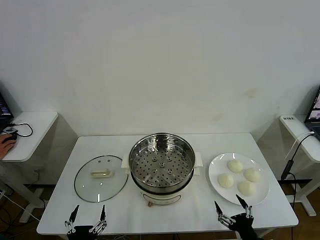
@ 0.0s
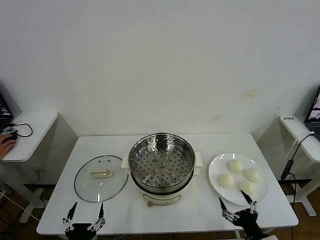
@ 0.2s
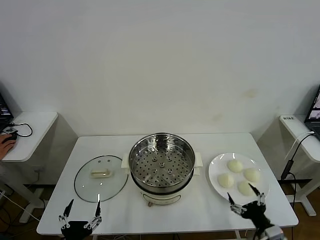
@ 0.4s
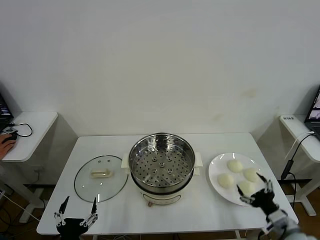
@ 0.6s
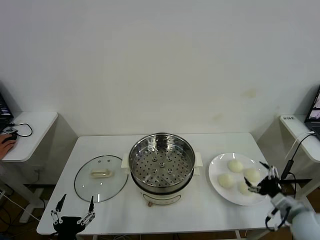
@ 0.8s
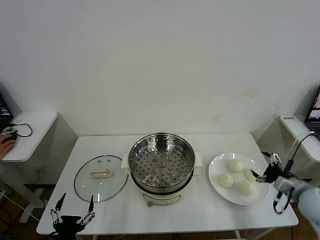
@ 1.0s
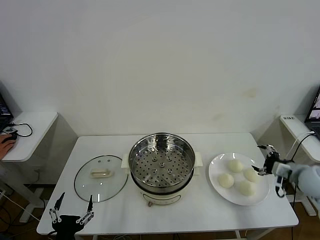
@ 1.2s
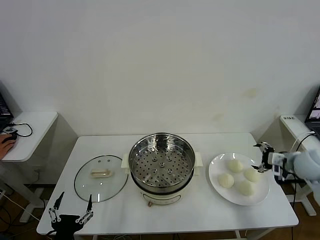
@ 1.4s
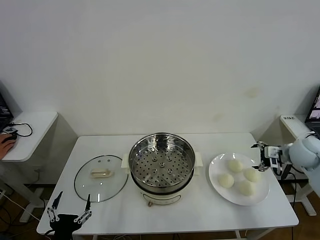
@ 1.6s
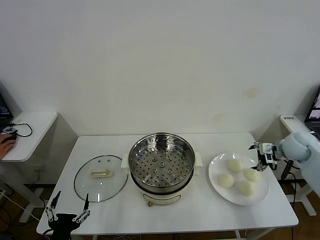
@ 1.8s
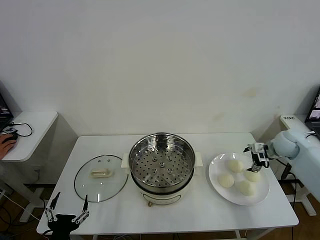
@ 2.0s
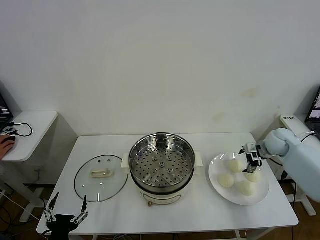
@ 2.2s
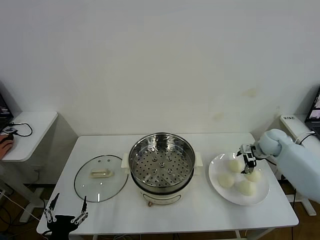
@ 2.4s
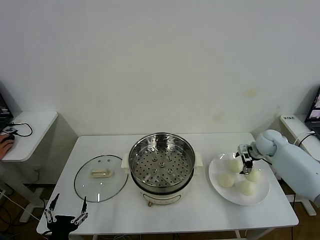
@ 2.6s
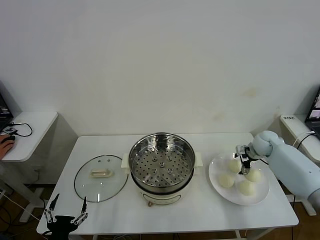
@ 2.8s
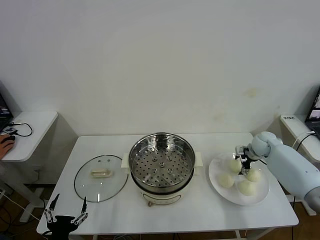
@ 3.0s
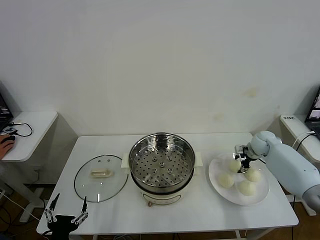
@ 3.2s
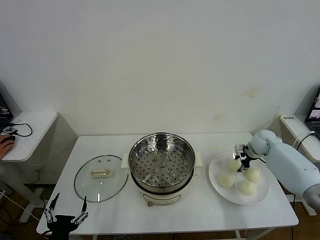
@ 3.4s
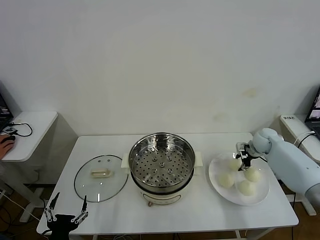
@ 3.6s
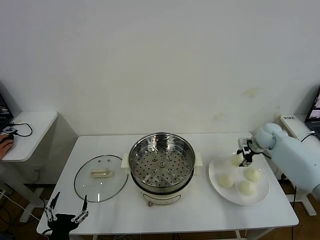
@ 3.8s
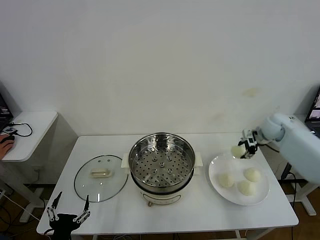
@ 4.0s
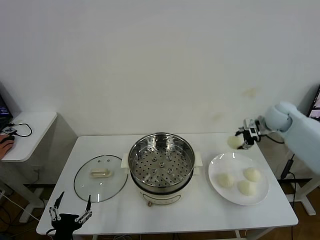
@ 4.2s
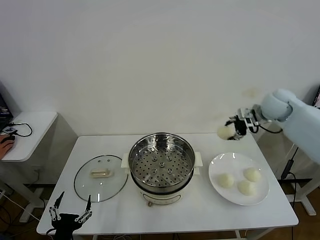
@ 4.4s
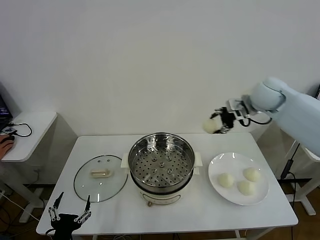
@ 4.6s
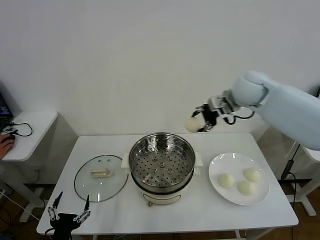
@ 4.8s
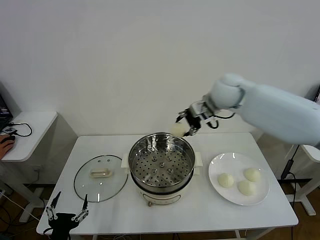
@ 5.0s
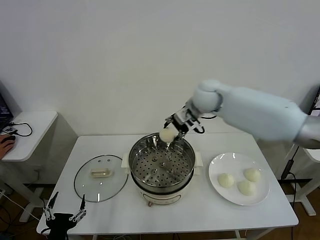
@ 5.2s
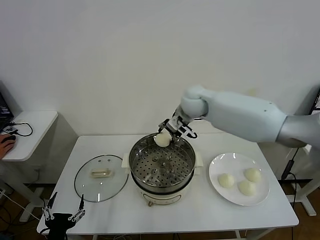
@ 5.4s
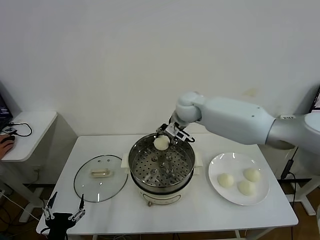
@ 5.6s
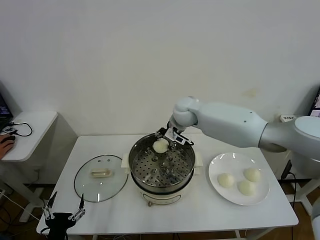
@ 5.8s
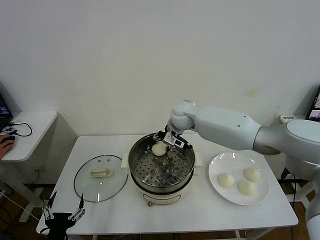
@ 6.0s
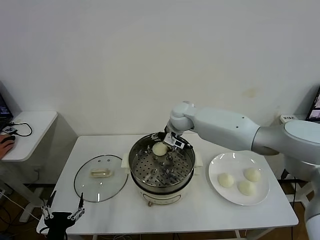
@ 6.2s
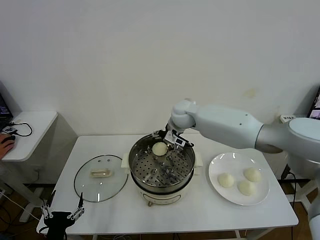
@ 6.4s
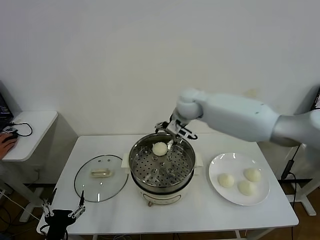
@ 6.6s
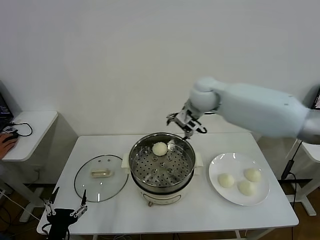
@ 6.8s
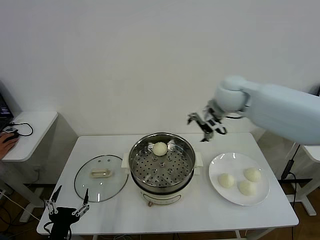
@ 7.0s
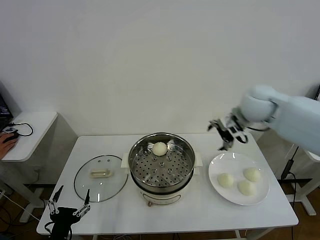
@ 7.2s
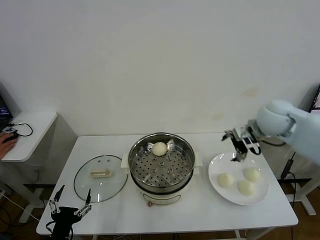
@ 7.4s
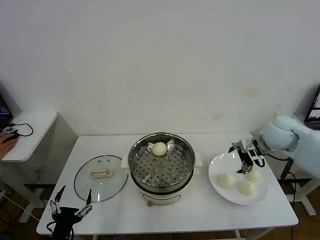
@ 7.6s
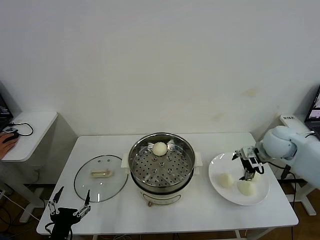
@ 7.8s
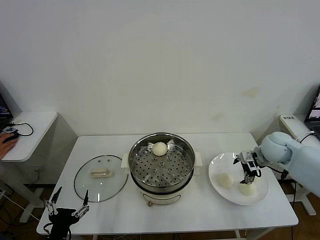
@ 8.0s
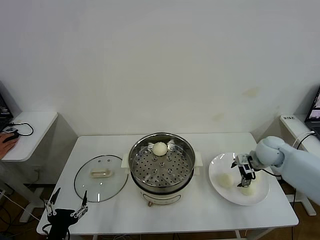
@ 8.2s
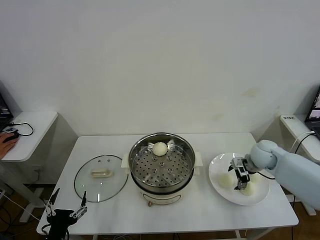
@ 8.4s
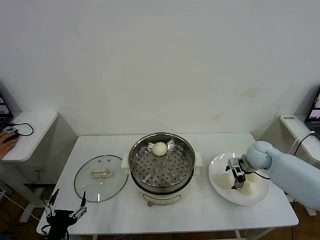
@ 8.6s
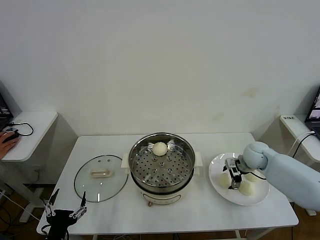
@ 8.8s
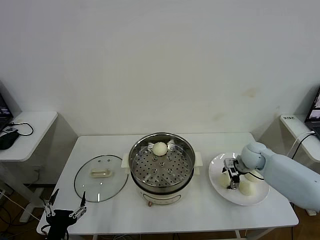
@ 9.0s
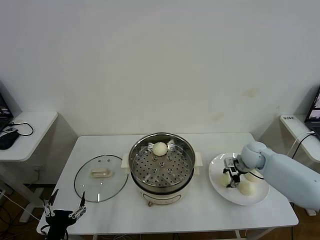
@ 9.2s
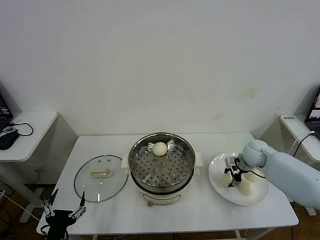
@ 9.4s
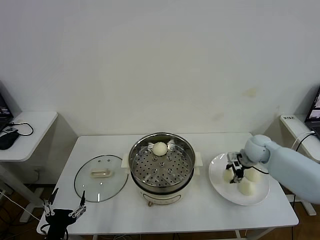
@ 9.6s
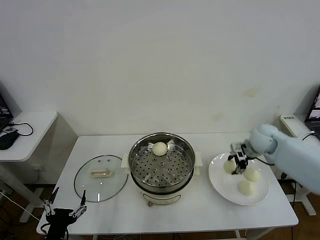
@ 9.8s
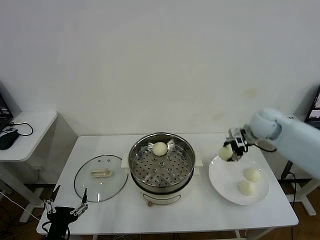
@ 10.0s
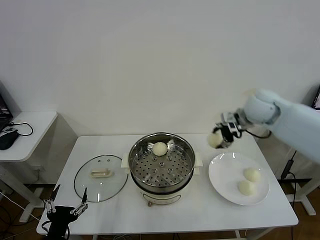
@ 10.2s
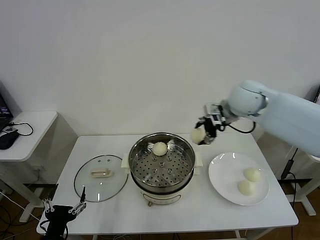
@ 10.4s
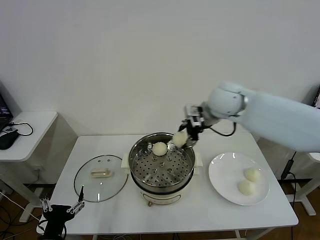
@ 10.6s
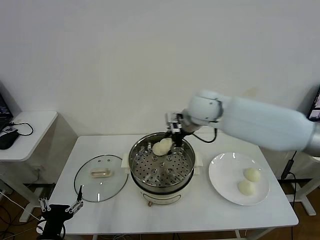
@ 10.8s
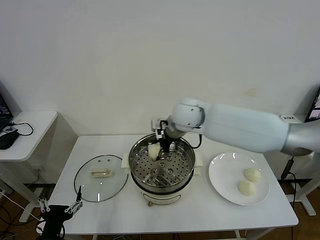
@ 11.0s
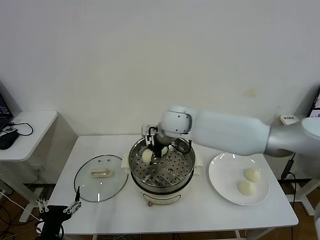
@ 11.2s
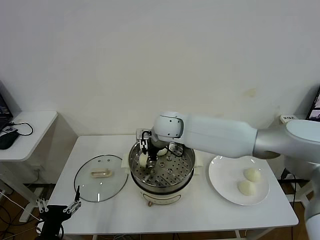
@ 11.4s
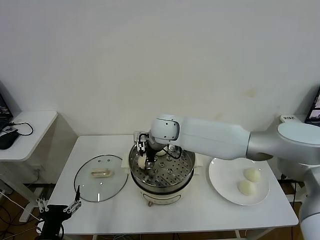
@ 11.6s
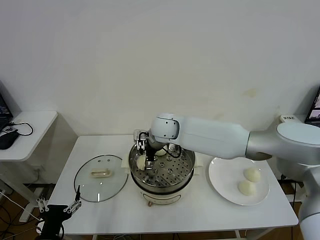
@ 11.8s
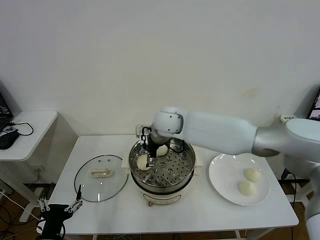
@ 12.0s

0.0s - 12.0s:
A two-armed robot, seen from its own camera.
Task of the whole recording: take steamed baozi put them in steamer then cover it.
Step, 0.0s - 3.2s: Grasp the baozi in the plate with right gripper.
Step, 3.4s - 6.2s: Place the baozi on the steamer with right gripper.
Step, 6.4s - 9.2s: Grasp the baozi in the plate with right gripper.
Step, 9.4s - 11.8s: Place the baozi on the steamer with right gripper.
1.6s - 3.0s: The right gripper moves forward, downward and to the left, some 15 cm.
3.0s - 4.4s: The right gripper heads upward, covering roughly 20 cm, and closes its fingers.
4.4s - 6.0s: The right gripper goes approximately 30 cm to the left.
6.0s - 7.6s: The right gripper travels to the right and backward by about 30 cm, and opens.
7.6s - 9.0s: The right gripper goes roughly 15 cm downward.
9.0s - 10.4s: The right gripper travels upward and to the left by approximately 25 cm, and closes.
10.4s - 12.0s: The right gripper heads to the left and downward, covering roughly 25 cm, and opens up.

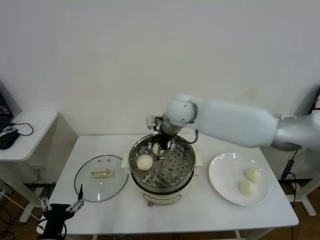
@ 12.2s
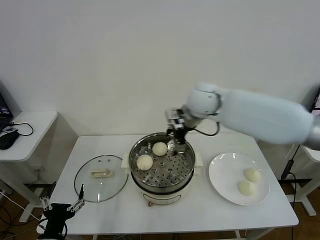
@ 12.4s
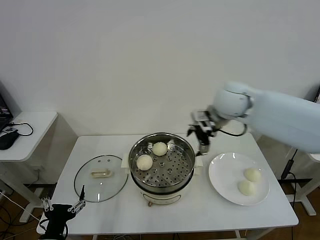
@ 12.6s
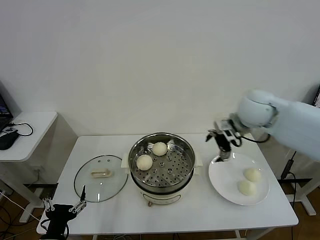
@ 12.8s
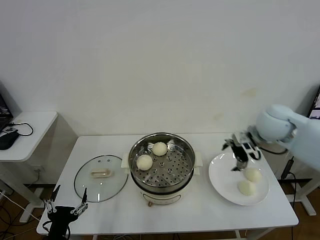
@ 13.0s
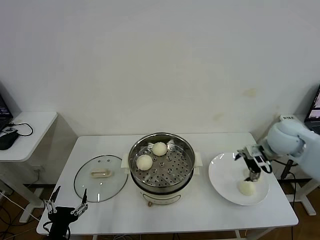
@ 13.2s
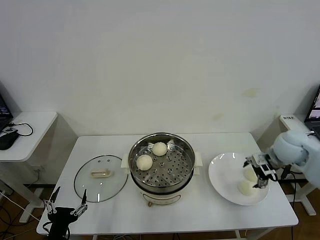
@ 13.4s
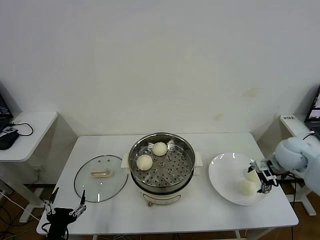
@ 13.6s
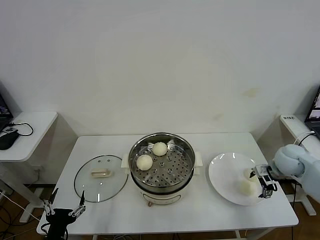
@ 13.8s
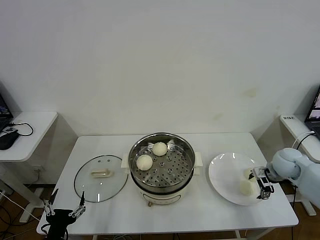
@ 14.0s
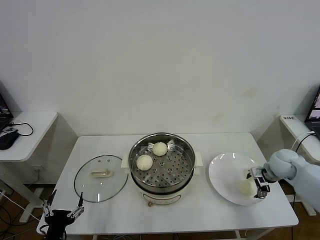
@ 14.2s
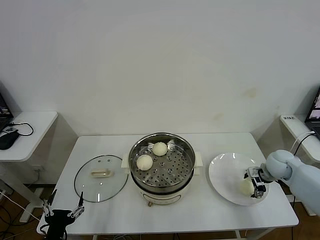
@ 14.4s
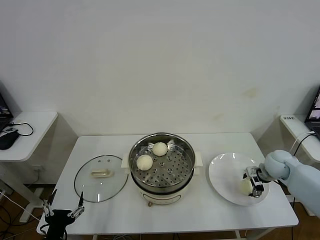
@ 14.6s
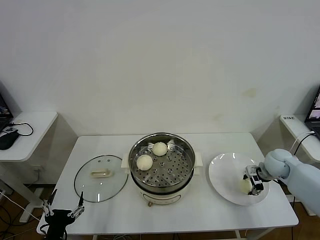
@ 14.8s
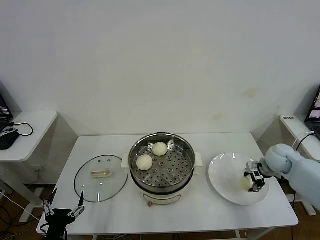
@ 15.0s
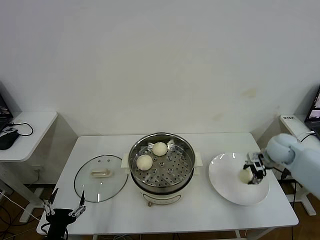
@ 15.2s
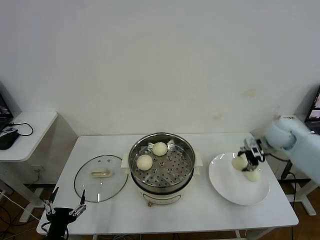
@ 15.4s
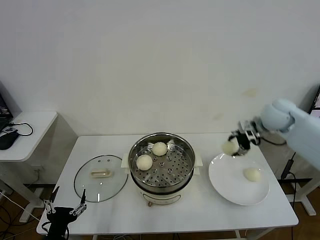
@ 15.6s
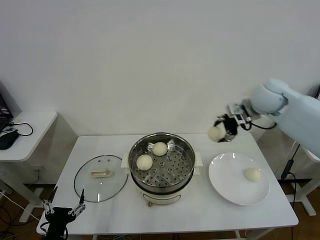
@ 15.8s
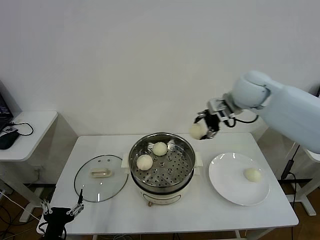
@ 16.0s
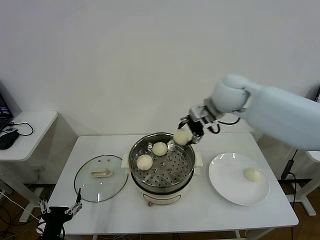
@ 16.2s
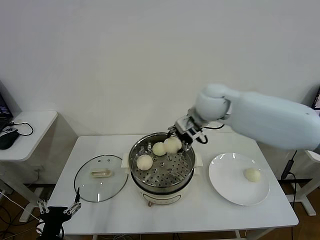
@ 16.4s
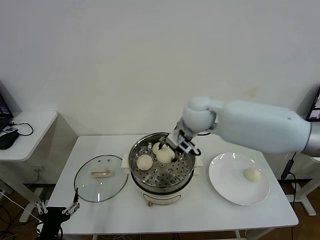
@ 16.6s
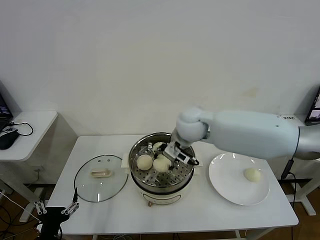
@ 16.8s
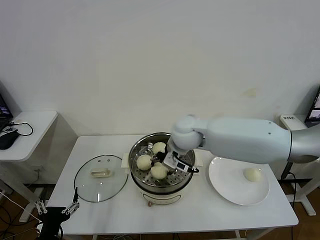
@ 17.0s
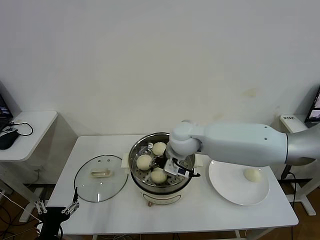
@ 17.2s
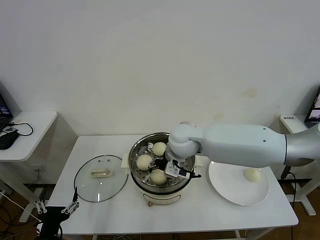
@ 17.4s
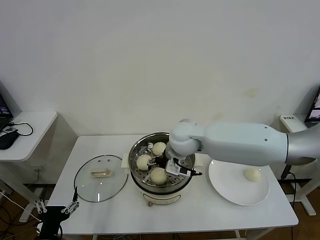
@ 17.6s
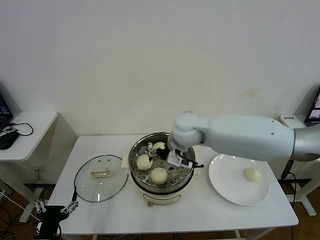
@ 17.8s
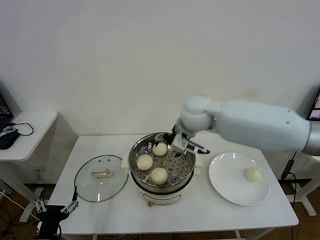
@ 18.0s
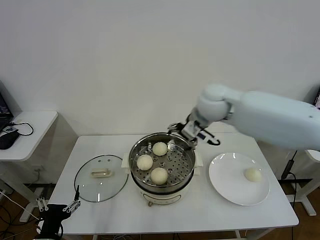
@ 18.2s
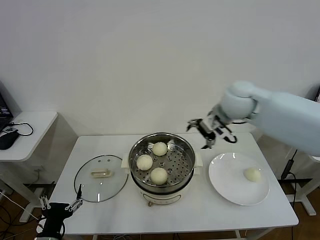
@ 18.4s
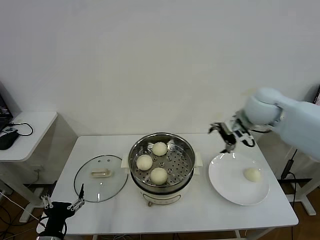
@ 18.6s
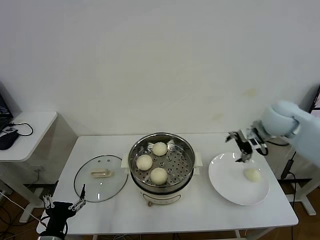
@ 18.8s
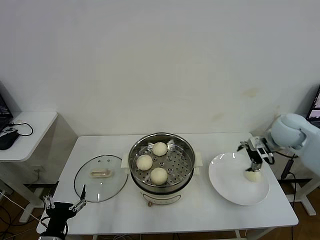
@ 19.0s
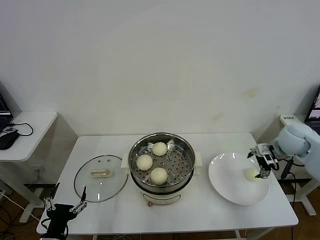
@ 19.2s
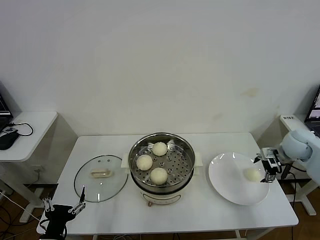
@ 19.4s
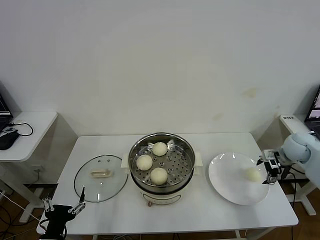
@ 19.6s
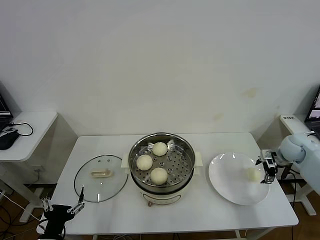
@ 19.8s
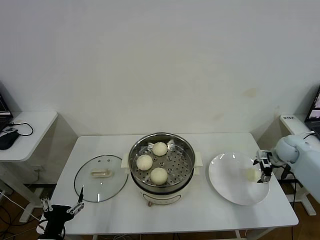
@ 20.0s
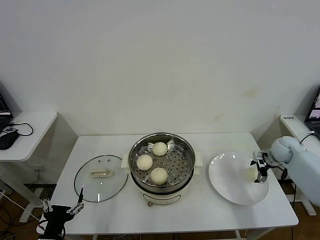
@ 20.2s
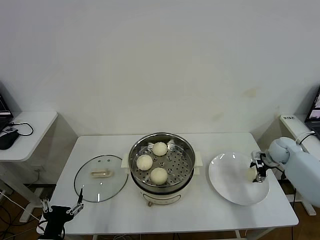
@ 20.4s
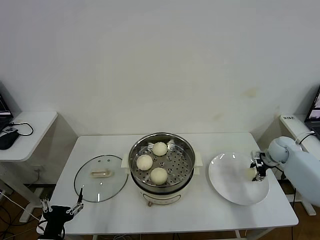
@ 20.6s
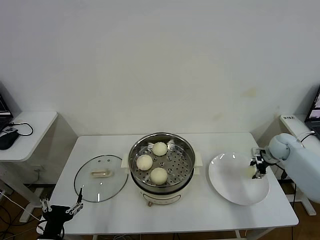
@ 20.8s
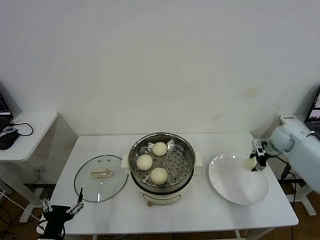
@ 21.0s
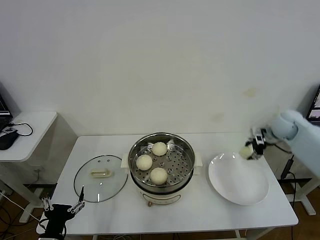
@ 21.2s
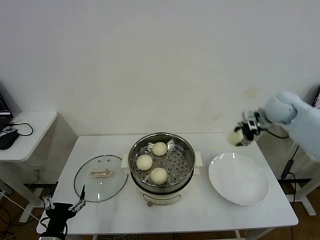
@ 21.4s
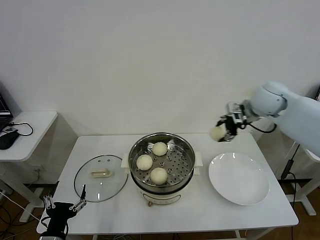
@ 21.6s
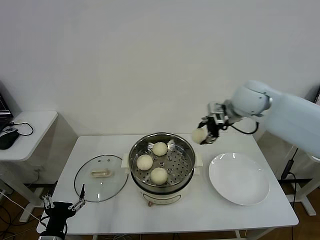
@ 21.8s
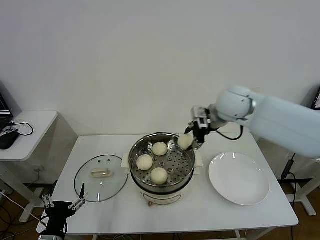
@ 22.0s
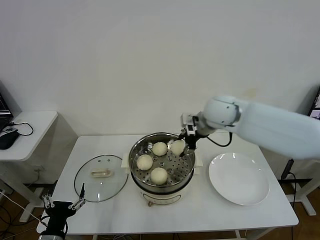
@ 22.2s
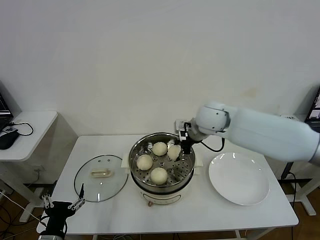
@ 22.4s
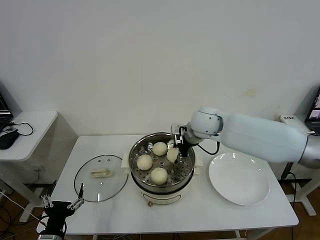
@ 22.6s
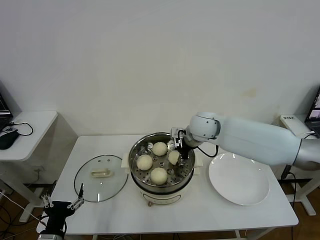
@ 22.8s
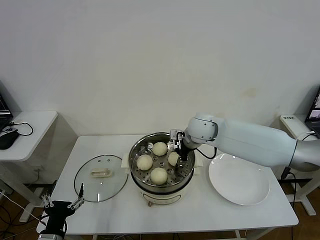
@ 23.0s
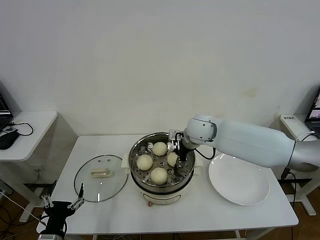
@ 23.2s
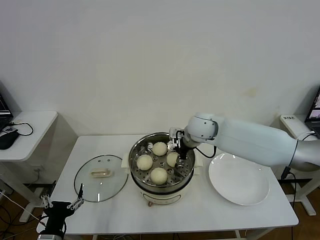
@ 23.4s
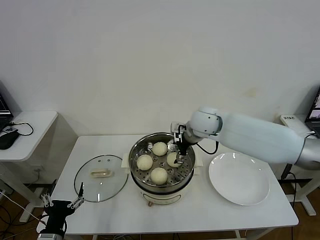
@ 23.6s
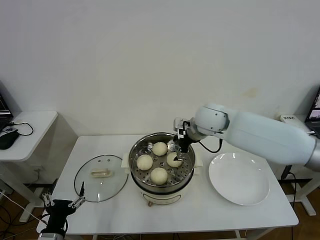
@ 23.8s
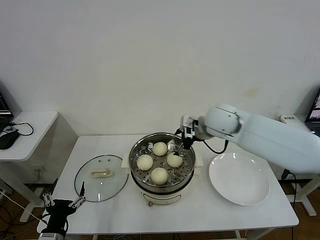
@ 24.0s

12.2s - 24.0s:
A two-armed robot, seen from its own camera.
Task of the whole recording: take steamed baozi put them in steamer then cover it.
Step, 12.2s - 14.8s: Grasp the baozi in the plate with right gripper.
Step, 15.0s - 17.6s: Place the baozi on the steamer with right gripper.
Step, 17.8s - 20.4s: Grasp the baozi in the plate with right gripper.
Step, 20.8s - 23.4s: Place the baozi on the steamer with right gripper.
12.2s - 13.6s: The right gripper travels to the right by approximately 35 cm.
13.6s - 15.2s: The right gripper reaches about 10 cm downward, then returns, and closes up.
15.2s - 16.6s: The right gripper shifts roughly 35 cm to the left and upward.
16.6s - 18.2s: The right gripper moves about 5 cm downward and comes back, and opens its fingers.
18.2s - 19.6s: The right gripper shifts roughly 35 cm to the right and downward.
19.6s - 21.0s: The right gripper shifts some 5 cm forward, and closes up.
21.0s - 22.6s: The right gripper goes roughly 30 cm to the left.
22.6s - 24.0s: The right gripper opens its fingers.
